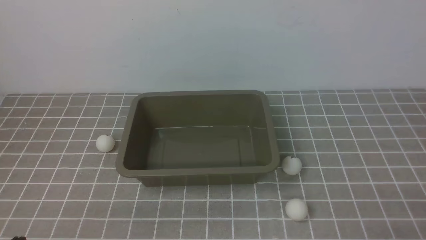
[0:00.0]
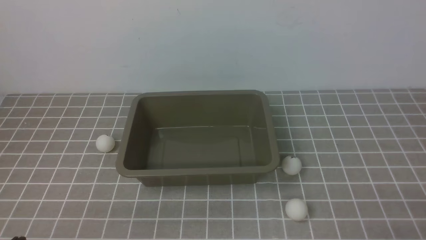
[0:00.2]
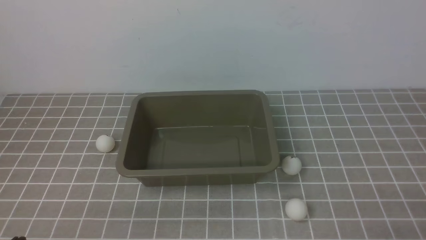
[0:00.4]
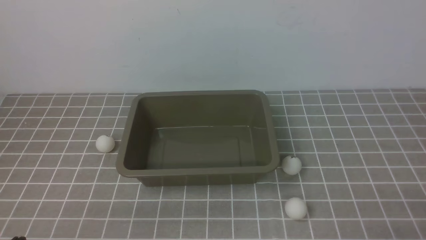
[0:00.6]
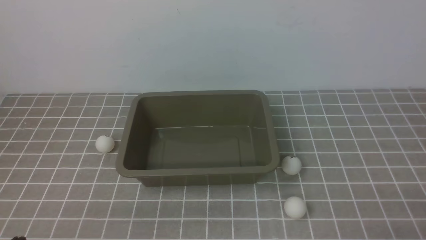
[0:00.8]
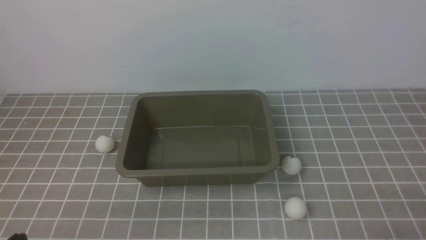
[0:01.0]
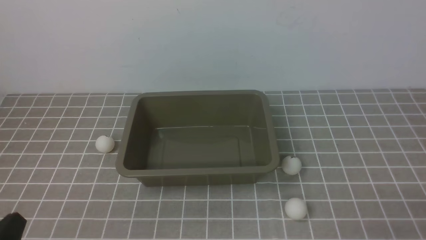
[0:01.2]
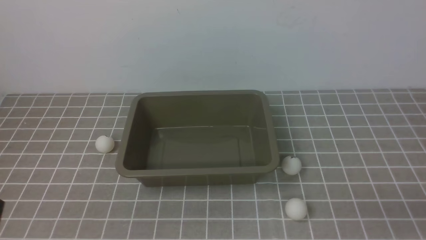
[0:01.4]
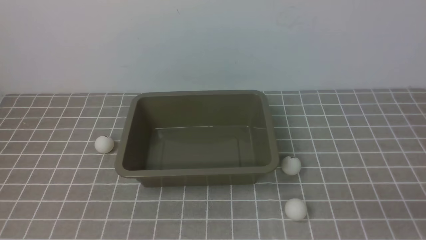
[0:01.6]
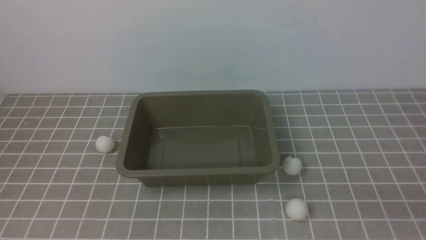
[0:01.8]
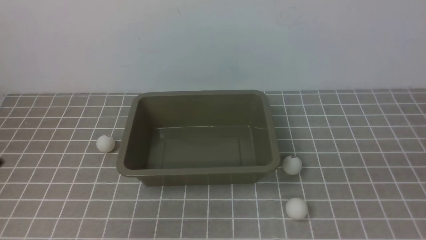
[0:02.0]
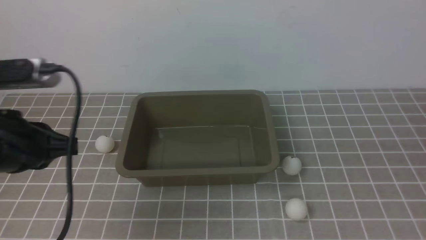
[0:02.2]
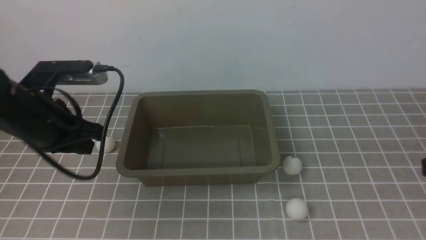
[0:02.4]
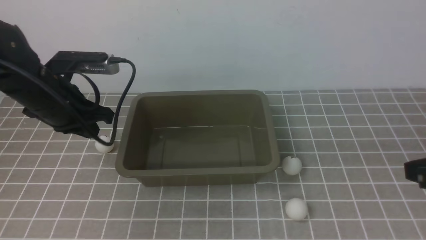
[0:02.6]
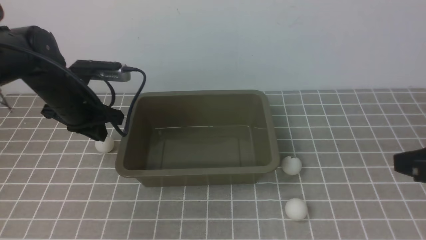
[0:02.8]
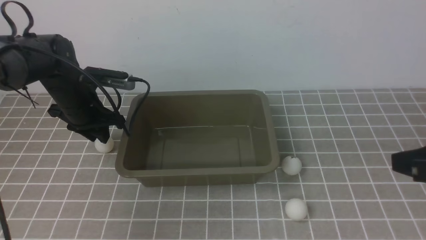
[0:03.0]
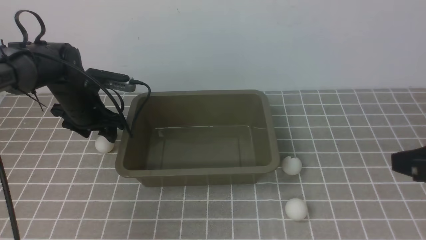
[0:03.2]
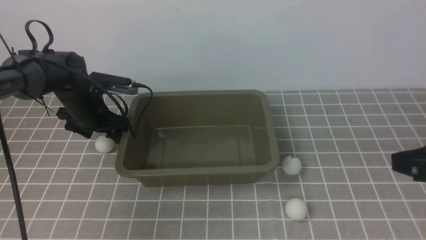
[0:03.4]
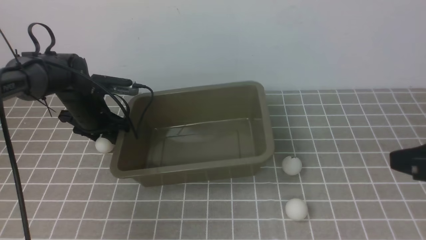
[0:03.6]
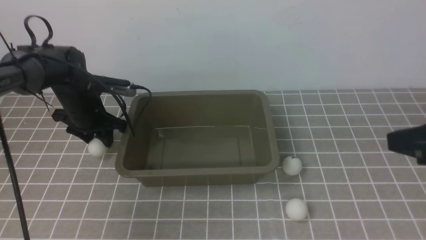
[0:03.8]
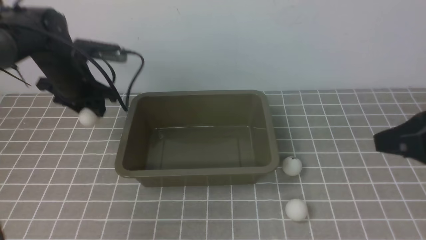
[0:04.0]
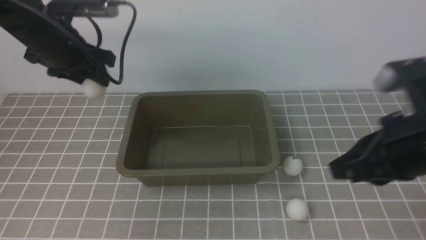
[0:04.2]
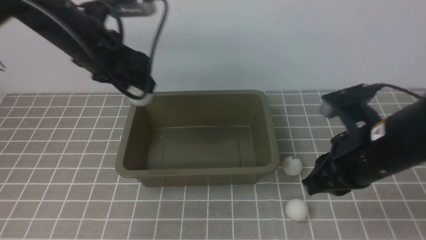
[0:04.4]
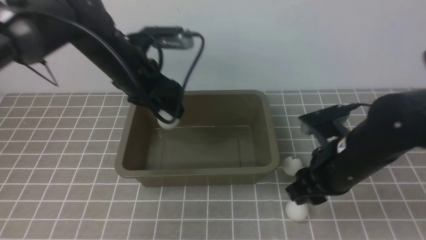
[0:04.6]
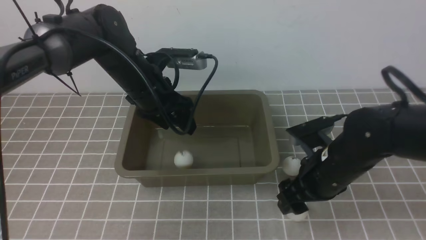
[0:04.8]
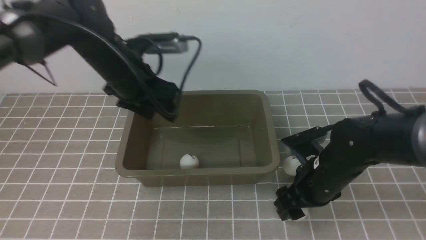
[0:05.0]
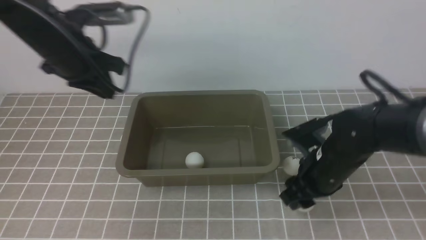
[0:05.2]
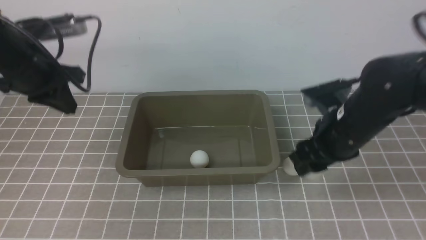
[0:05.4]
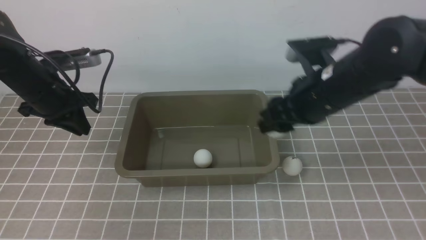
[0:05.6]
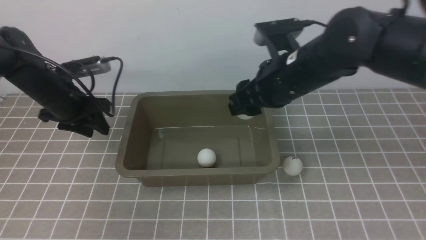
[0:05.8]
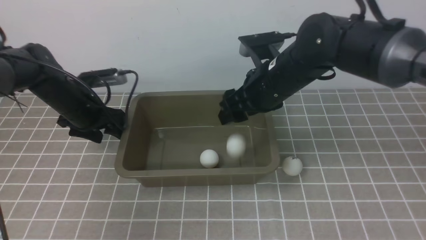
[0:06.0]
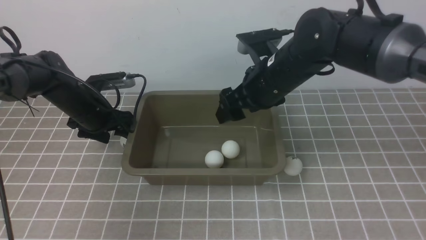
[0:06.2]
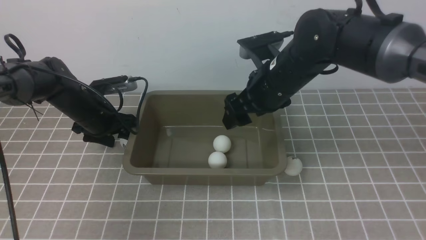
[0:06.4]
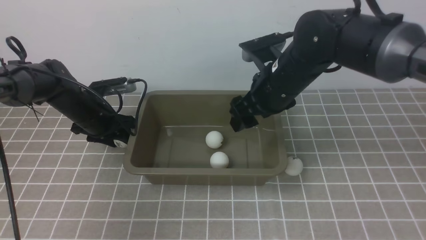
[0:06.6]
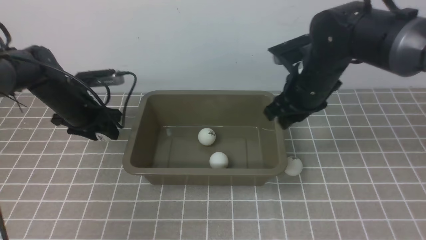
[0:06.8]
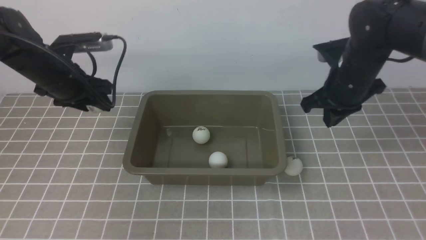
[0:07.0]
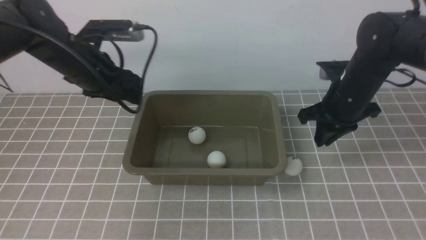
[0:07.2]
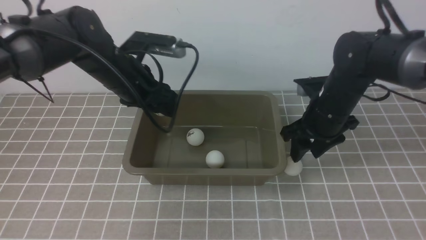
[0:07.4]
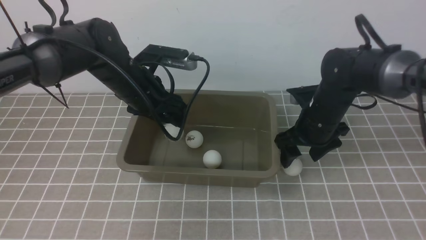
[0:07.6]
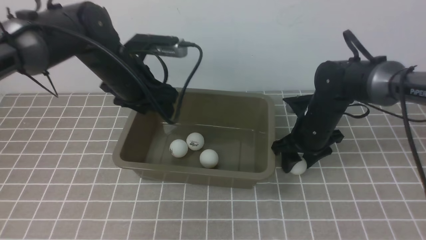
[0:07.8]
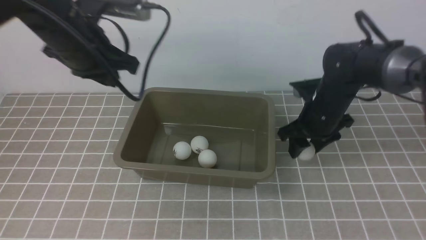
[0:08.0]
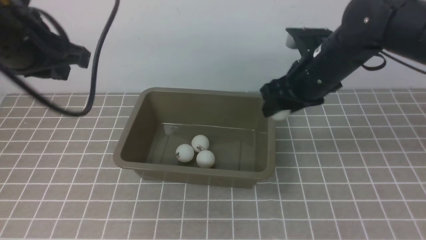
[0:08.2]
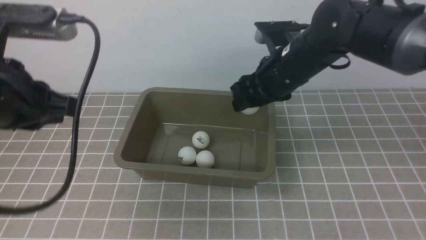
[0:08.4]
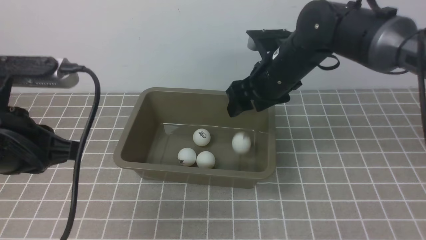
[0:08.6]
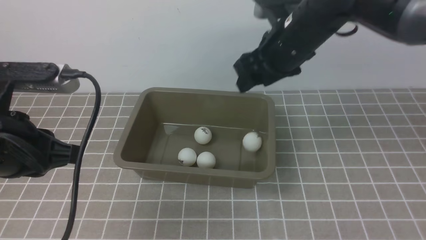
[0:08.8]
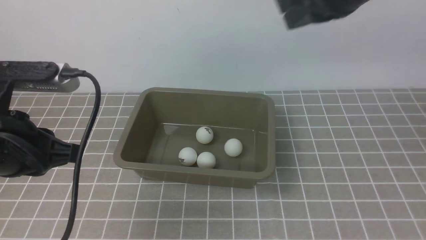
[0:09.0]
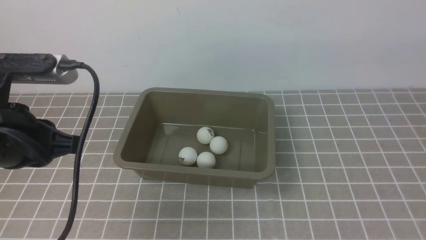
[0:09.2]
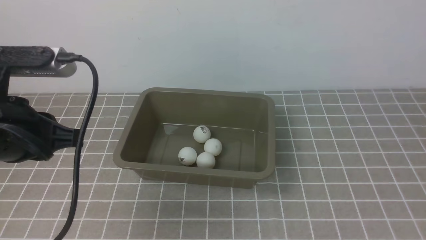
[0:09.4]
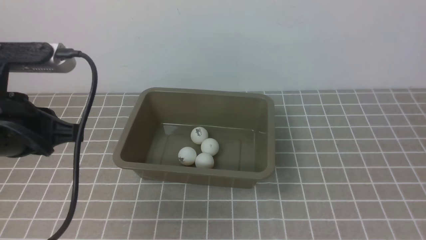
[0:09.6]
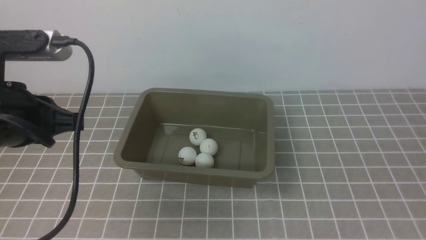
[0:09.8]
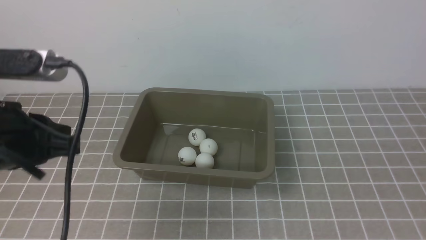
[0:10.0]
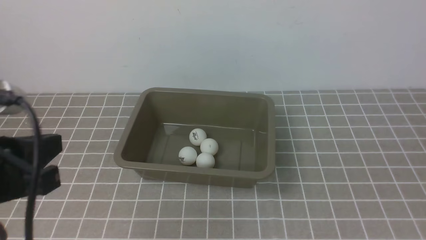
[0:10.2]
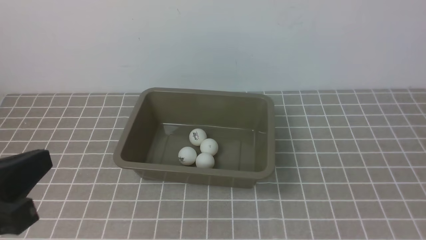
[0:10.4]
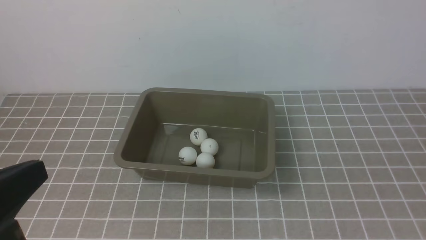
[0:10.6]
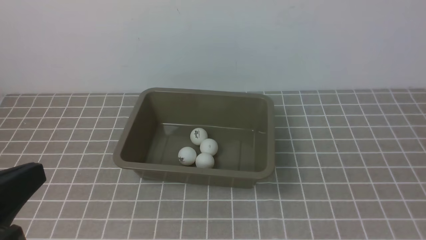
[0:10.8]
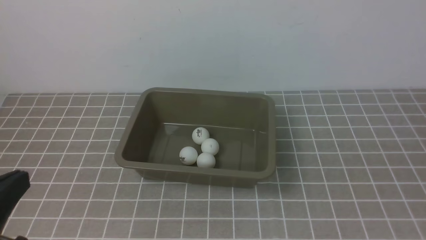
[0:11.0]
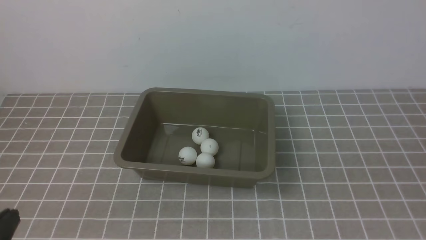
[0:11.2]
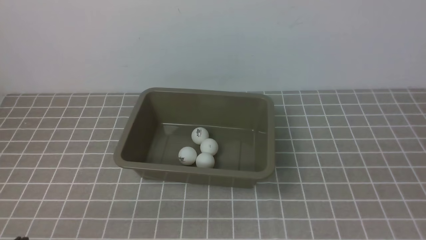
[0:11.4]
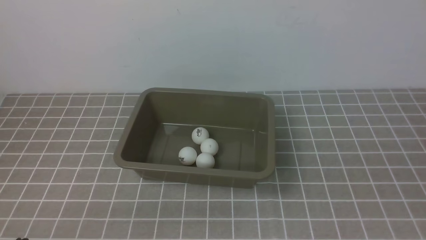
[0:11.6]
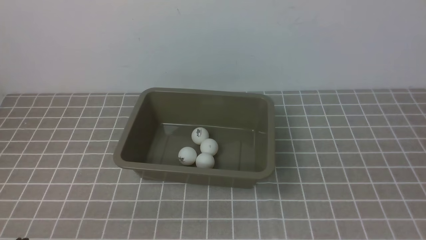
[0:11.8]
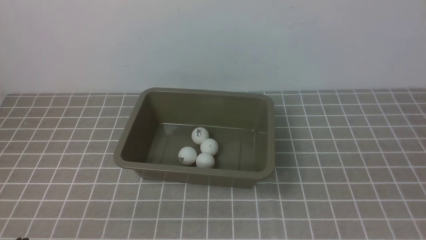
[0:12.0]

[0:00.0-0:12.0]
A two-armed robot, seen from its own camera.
Step, 0:00.0 to 0:04.0: use the left arm to clamp the table tennis ball closest to it.
Step, 0:04.2 to 0:04.8: use the left arm to put the table tennis ball into the box.
Step, 0:05.0 to 0:05.4: use the right arm to clamp the table tennis ball closest to it.
Step, 0:05.6 to 0:06.0: use the right arm to put the table tennis ball into the box.
Step, 0:06.2 to 0:06.8: use the left arm to clamp the table tennis ball closest to it.
Step, 0:07.0 to 0:07.6: use the left arm to put the table tennis ball into the box.
Step, 0:07.8 to 0:08.0: use the right arm to clamp the table tennis ball closest to it.
Step, 0:08.4 to 0:08.8: use the right arm to put the table tennis ball into the box.
0:01.6 to 0:03.0: The right gripper travels upward and forward by about 15 cm. The left gripper shifts about 35 cm forward.
0:03.0 to 0:04.4: The right gripper travels forward and to the left by about 10 cm. The left gripper travels upward by roughly 10 cm.
0:04.4 to 0:06.0: The left gripper moves downward and to the left, some 15 cm, and closes, then reopens. The right gripper goes roughly 15 cm forward and to the left, and opens its fingers.
0:06.0 to 0:07.6: The right gripper heads downward and to the right, covering about 10 cm, and closes, then reopens. The left gripper is displaced to the right and upward by roughly 15 cm.
0:07.6 to 0:09.0: The right gripper moves upward, about 20 cm, and closes its fingers; the left gripper moves backward, approximately 20 cm, and closes.
0:09.0 to 0:10.4: The left gripper shifts some 10 cm backward; the right gripper travels backward and to the right by some 35 cm, and closes.
0:10.4 to 0:12.0: The left gripper travels downward by approximately 15 cm.

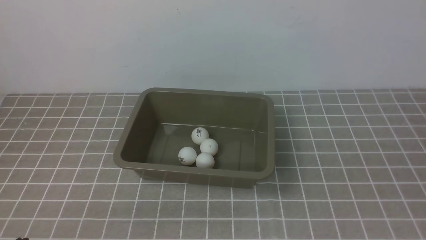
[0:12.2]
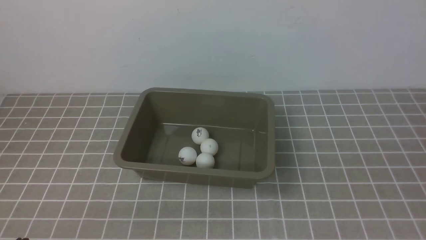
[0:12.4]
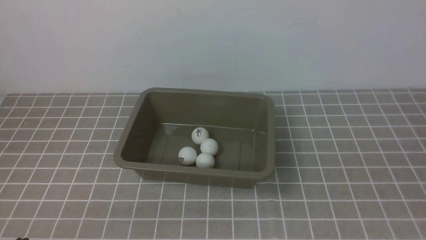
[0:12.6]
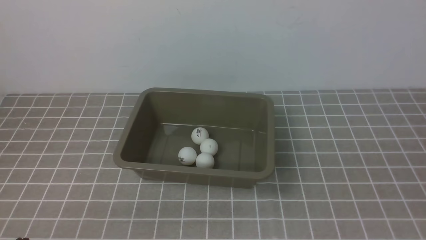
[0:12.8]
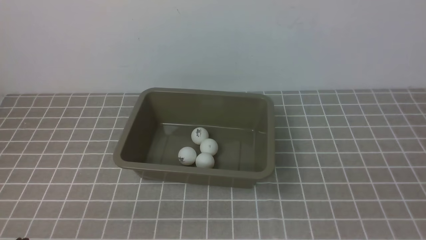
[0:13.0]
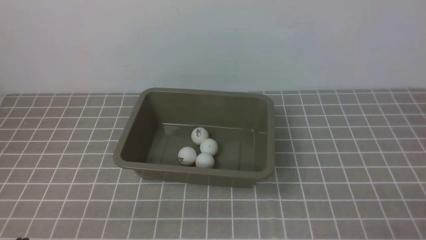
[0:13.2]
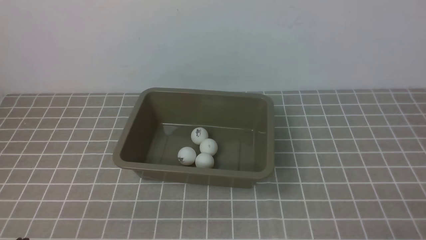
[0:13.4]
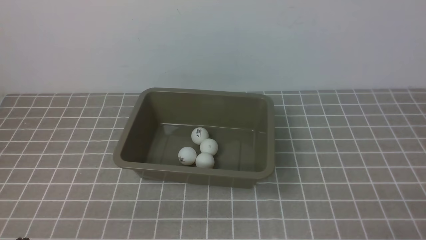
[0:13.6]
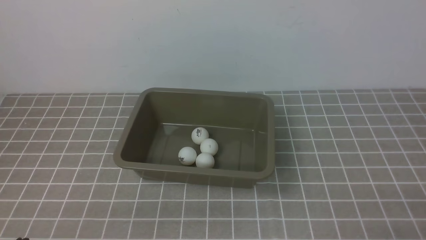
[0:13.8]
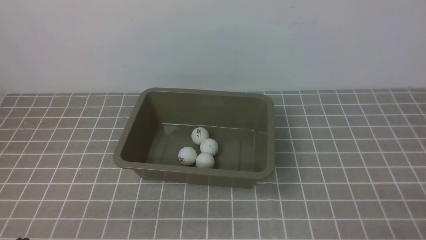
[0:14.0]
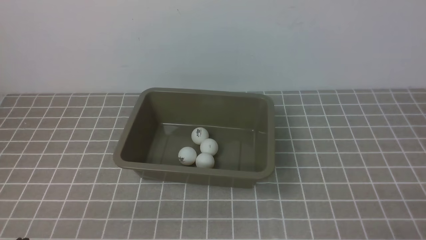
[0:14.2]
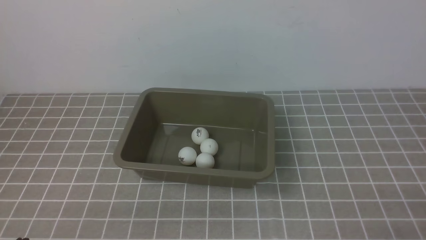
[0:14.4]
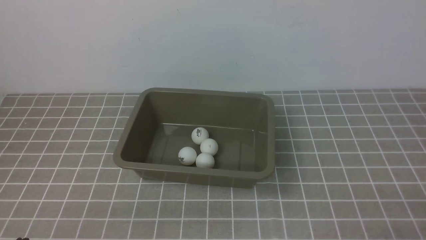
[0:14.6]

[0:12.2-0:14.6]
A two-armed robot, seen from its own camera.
0:13.4 to 0:14.6: Neither gripper changes place.
